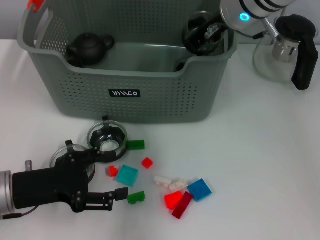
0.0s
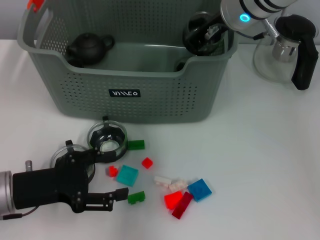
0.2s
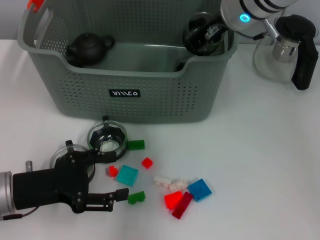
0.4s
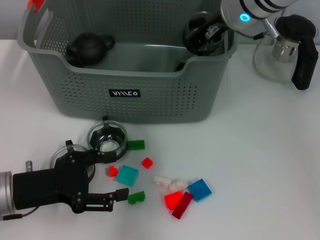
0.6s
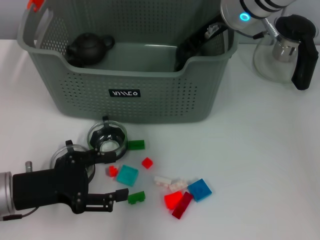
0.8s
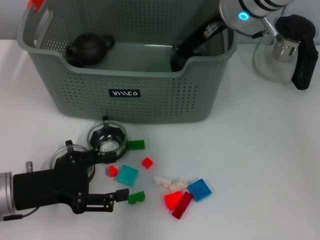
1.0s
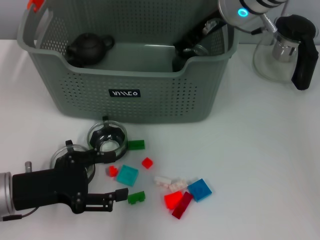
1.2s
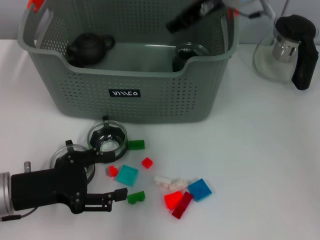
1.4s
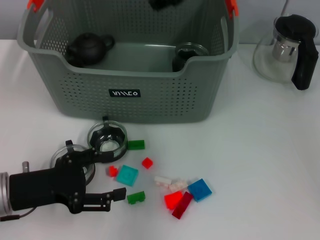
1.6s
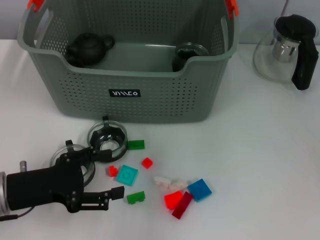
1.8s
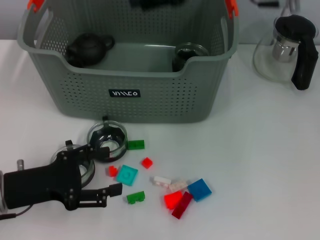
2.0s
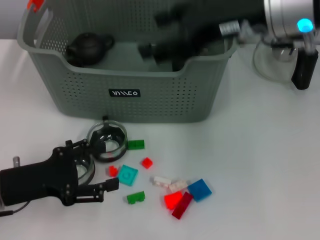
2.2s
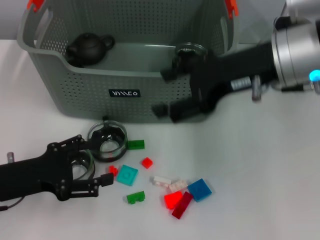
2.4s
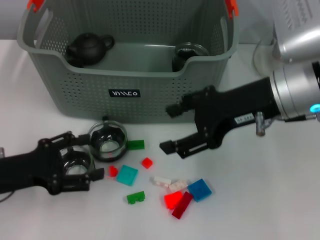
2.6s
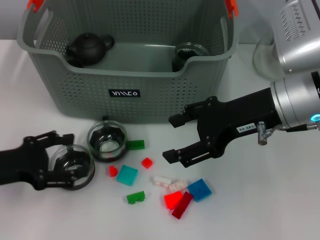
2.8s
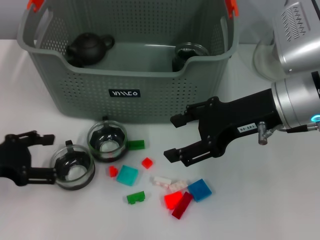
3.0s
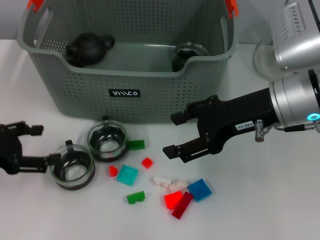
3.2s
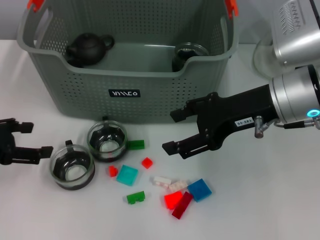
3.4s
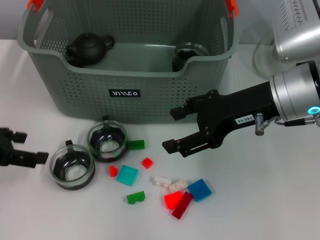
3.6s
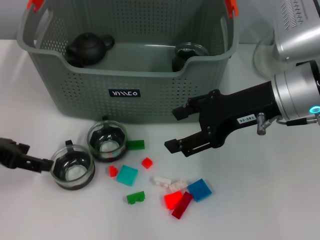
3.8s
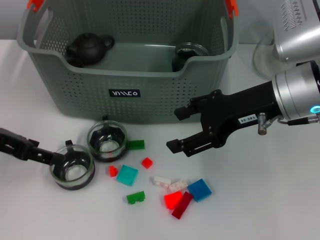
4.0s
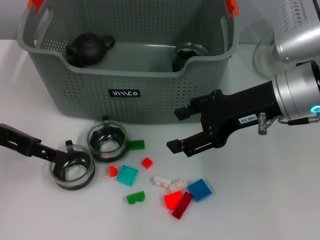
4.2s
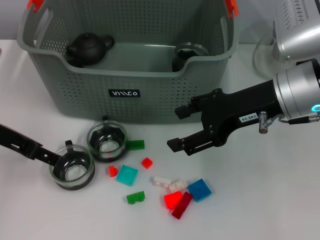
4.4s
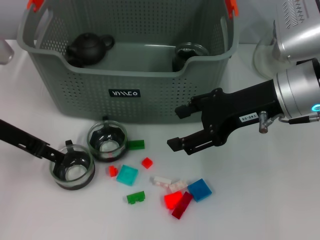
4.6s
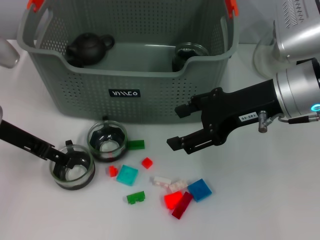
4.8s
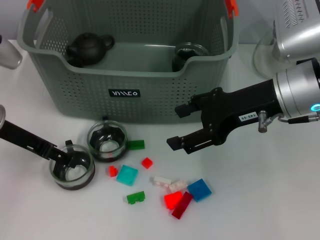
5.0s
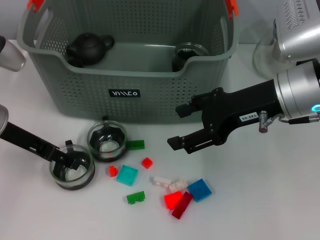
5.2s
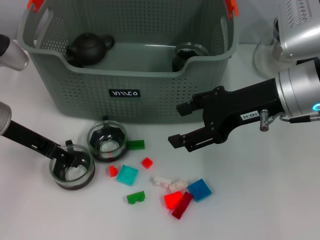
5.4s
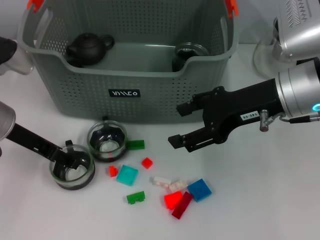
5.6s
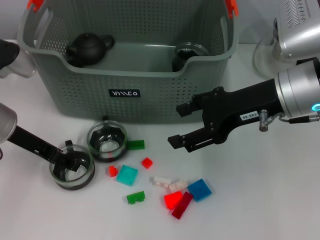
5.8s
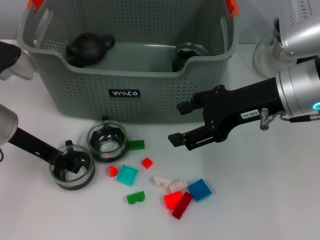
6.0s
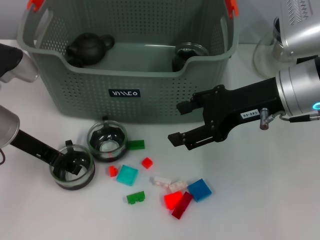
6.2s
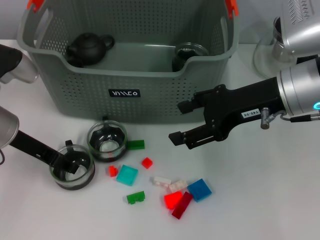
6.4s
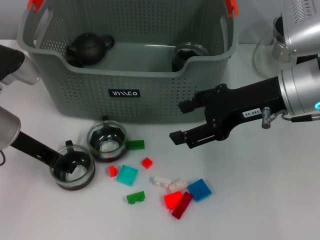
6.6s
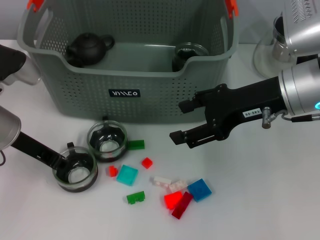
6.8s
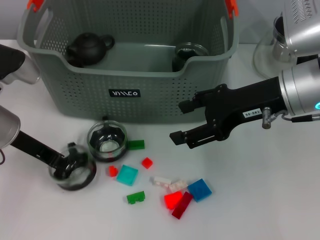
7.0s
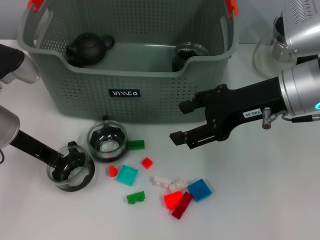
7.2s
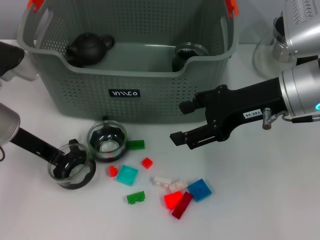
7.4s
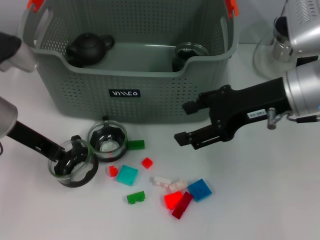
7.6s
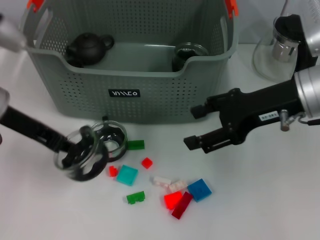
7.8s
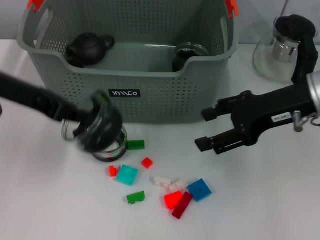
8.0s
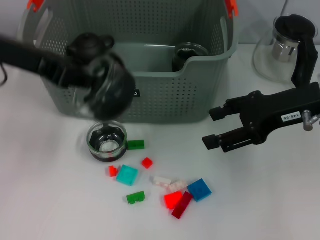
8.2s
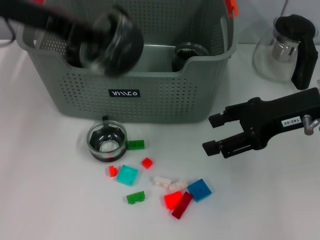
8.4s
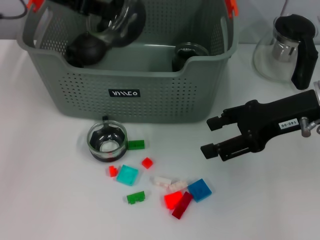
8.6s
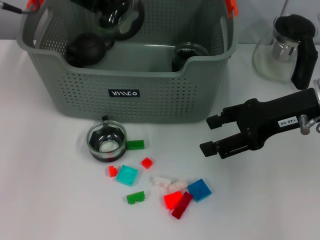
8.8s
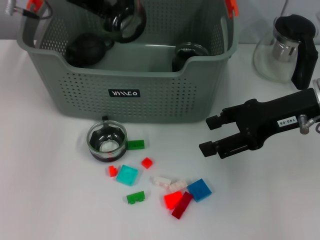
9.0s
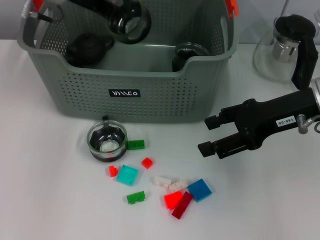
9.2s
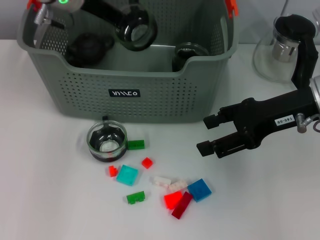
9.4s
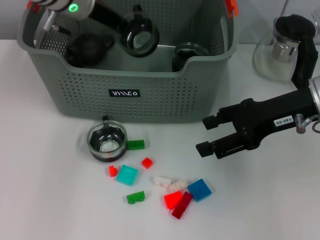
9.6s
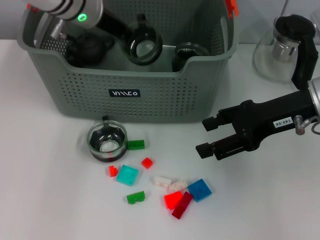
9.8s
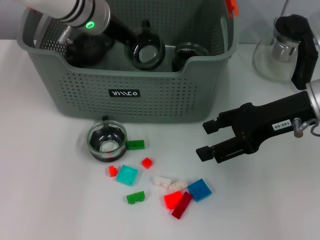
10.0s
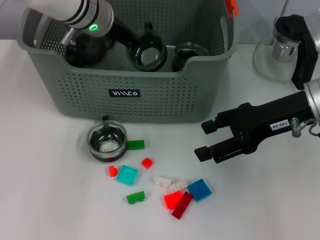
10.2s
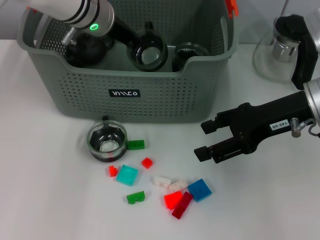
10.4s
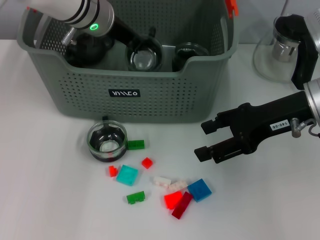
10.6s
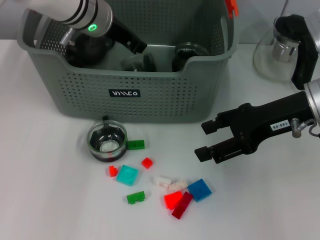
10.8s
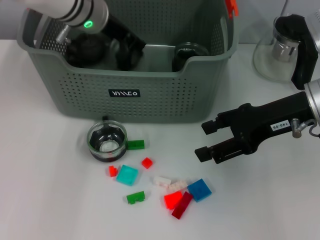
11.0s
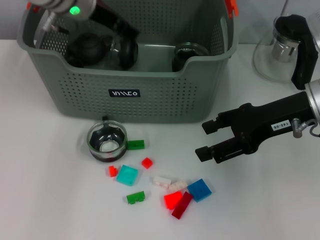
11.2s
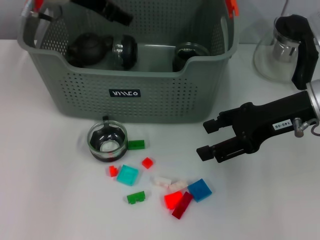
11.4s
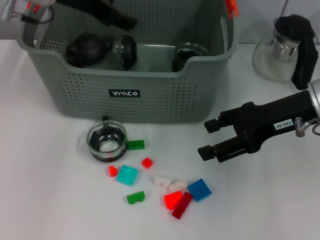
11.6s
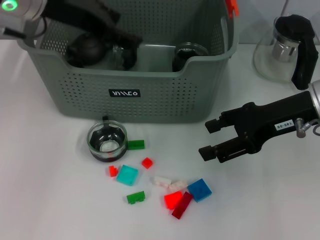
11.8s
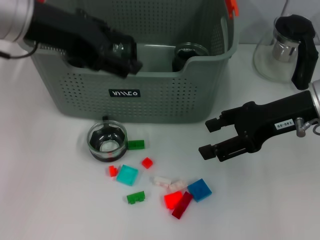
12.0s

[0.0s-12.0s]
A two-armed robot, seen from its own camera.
Task of the whole recording: pick up the teacup on the table and place it into the storage bin, pick up the block on the table and place it into the storage bin.
Step, 1.4s to 7.0s: Grasp the cup with left gripper.
Step, 7.2s to 10.8s: Place the cup in the storage box with left gripper.
0.0s to 1.6s: The right gripper shifts some 5 cm upward, and opens up.
1.6s to 3.0s: The right gripper moves backward, downward and to the right, approximately 15 cm. Meanwhile the left gripper goes approximately 5 cm to the left.
3.0s to 4.4s: The left gripper shifts about 10 cm forward, upward and to the right.
4.4s to 6.0s: The grippers stay close to where they were, moving slightly.
6.0s to 7.6s: The left gripper closes its fingers.
7.6s to 9.0s: The left gripper moves forward, upward and to the right, approximately 15 cm.
9.0s to 10.4s: The left gripper is displaced to the right and downward by approximately 10 cm.
10.4s to 12.0s: The left gripper heads backward, upward and to the left, covering roughly 15 cm, and opens up.

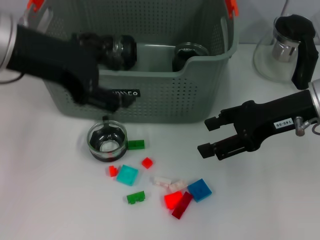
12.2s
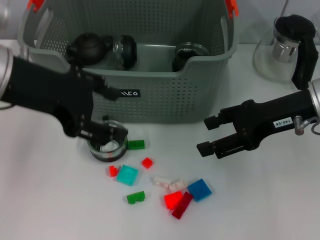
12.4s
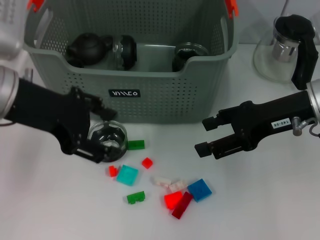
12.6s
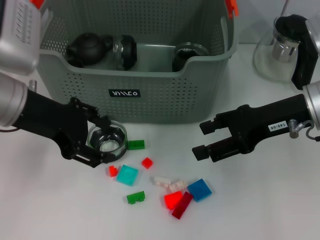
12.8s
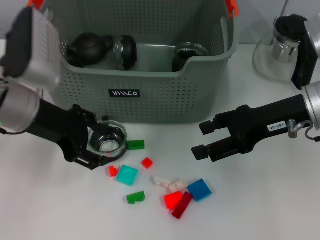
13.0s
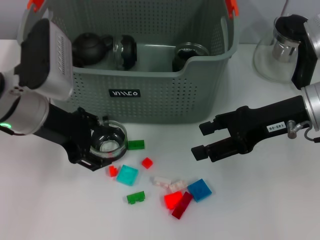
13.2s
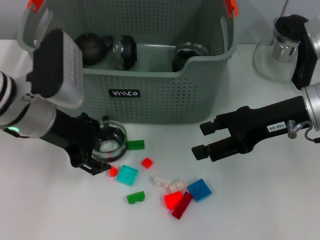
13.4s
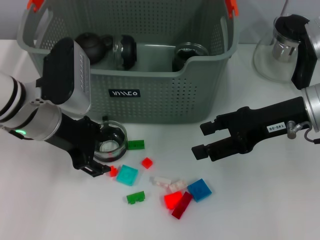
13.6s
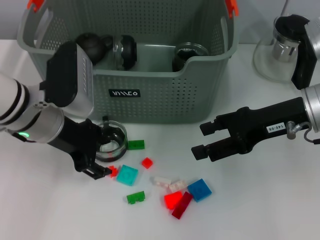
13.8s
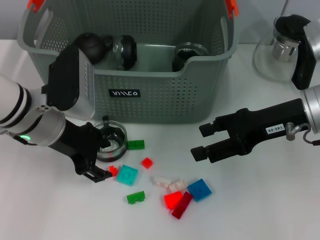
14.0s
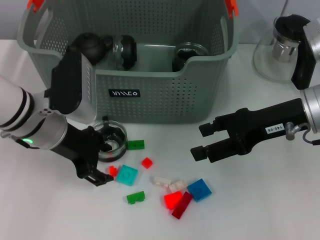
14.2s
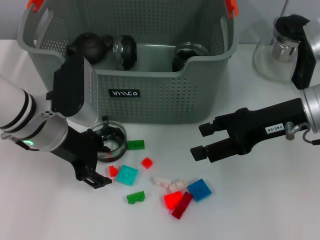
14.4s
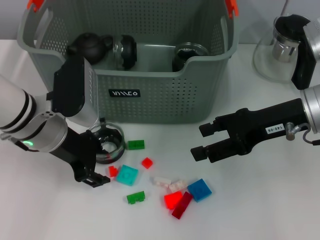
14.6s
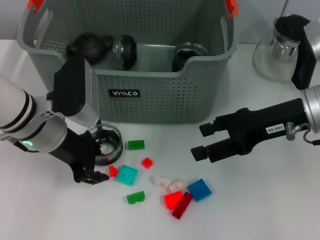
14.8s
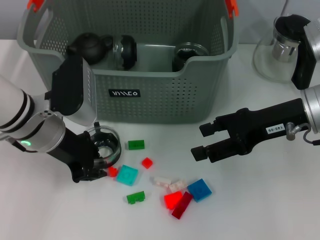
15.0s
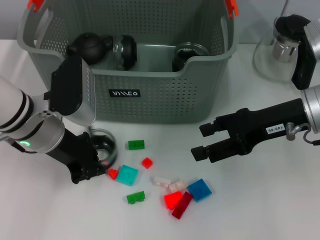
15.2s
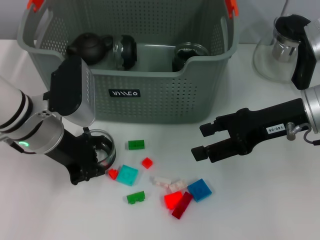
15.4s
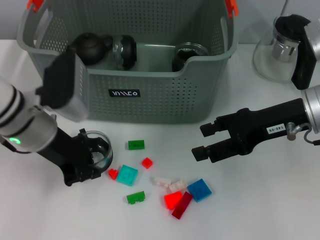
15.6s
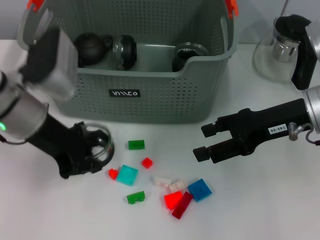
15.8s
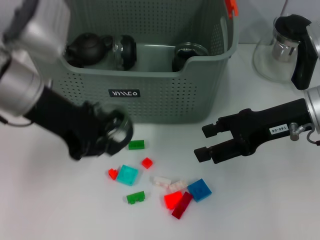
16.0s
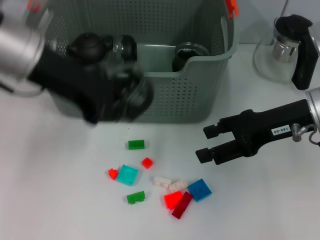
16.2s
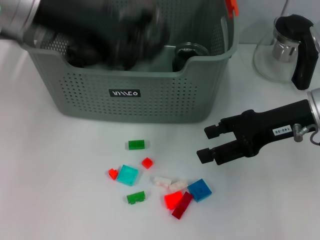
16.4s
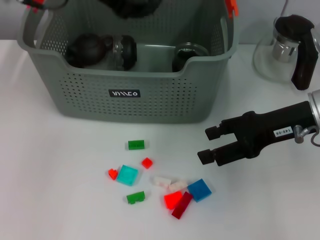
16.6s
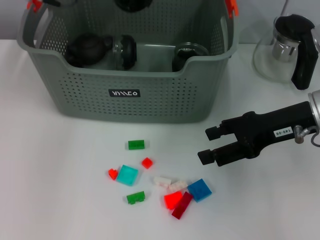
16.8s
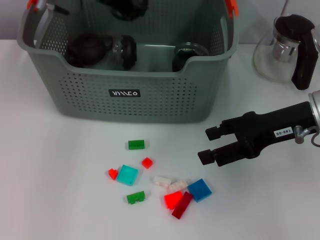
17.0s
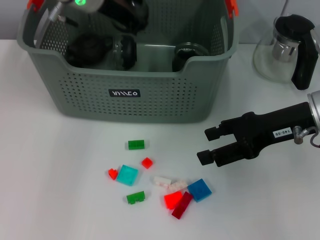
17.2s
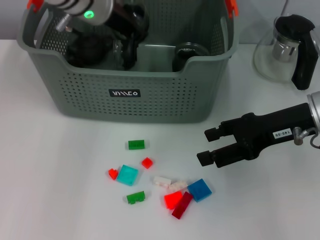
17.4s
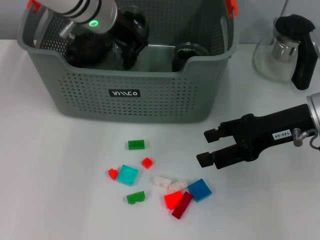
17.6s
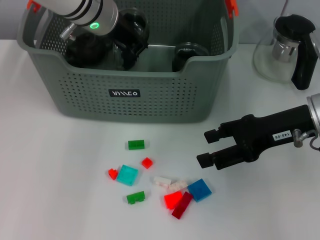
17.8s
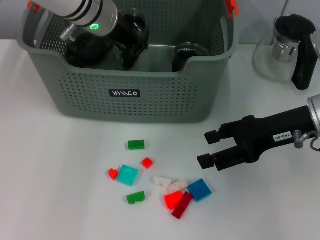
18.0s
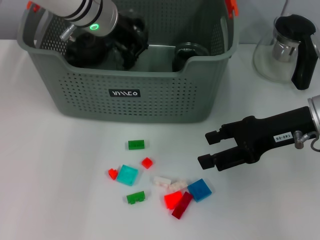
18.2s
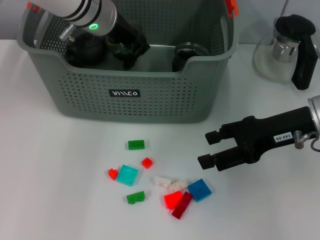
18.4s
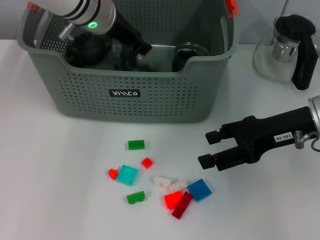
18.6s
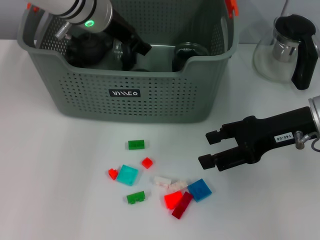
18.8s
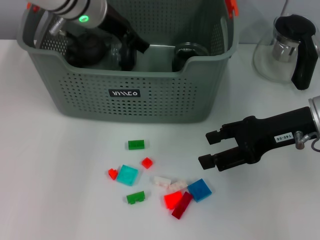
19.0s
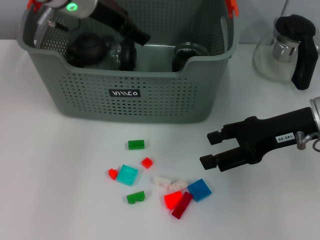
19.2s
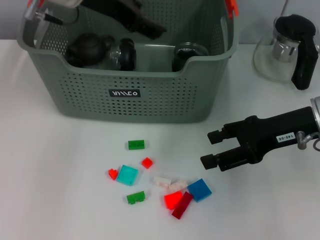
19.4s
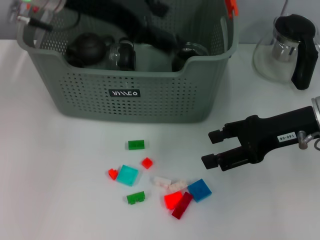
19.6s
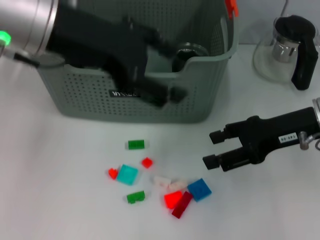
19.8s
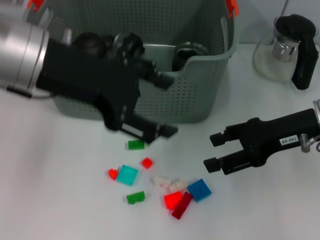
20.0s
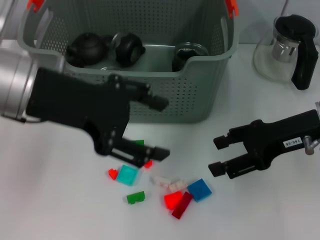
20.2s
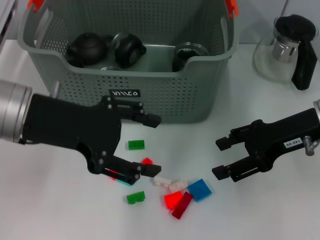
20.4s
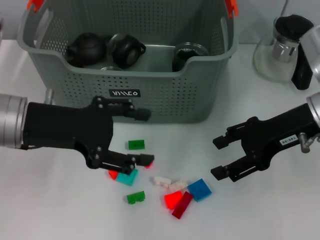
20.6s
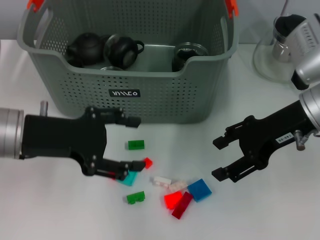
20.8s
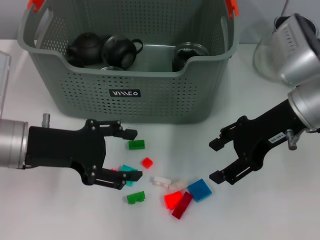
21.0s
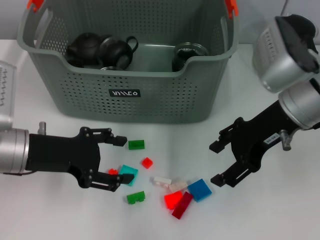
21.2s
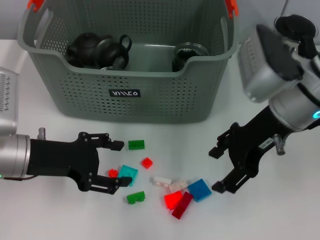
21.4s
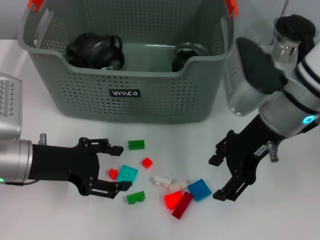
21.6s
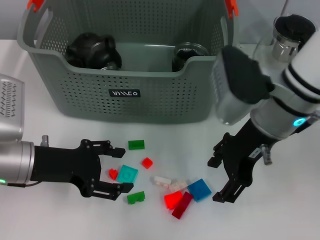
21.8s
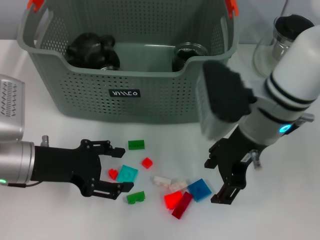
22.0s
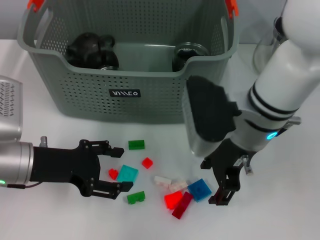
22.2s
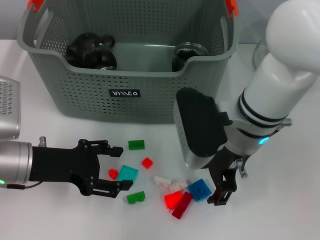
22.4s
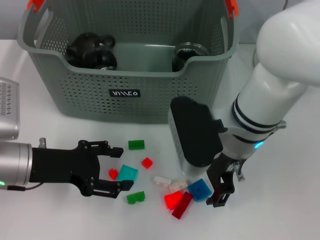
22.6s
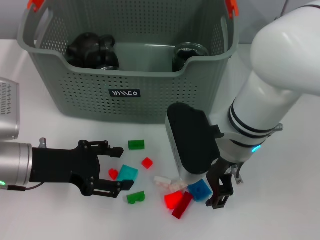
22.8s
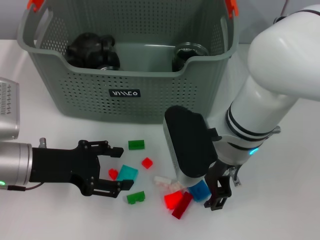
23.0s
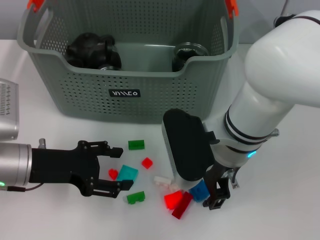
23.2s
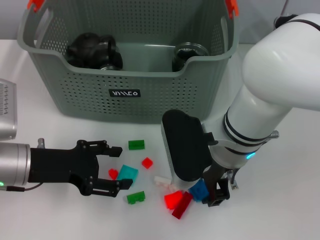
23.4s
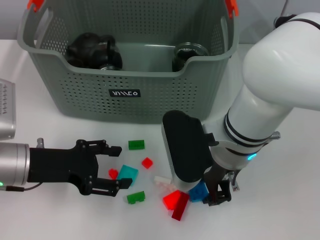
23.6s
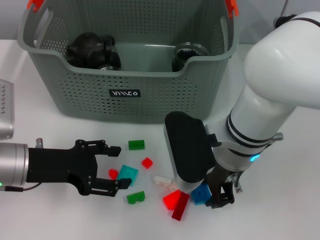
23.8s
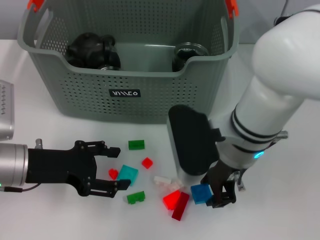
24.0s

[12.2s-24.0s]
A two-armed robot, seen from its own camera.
Task of the whole recording: pick up the teacup on the table and place it into the storage bin, pick up the block on the table and place it into the storage bin.
Step, 12.2s to 15.2s: Grasp the cup with left gripper.
Step, 15.4s to 18.6s: Place the cup in the storage box with left gripper.
Step, 18.8s to 23.4s: Grasp the dark blue block with right gripper.
12.2s to 13.6s: The left gripper is displaced downward by about 15 cm.
13.6s to 15.2s: The left gripper closes up.
15.2s to 16.6s: The left gripper is displaced upward by approximately 20 cm.
16.6s to 18.2s: The left gripper shifts about 10 cm downward, to the right and forward.
18.2s to 19.6s: The left gripper heads upward and backward, covering some 15 cm, and opens.
19.6s to 21.0s: The left gripper travels downward, backward and to the left by approximately 20 cm.
21.0s to 22.6s: The right gripper moves to the left, approximately 10 cm.
22.6s to 24.0s: The right gripper closes its fingers.
